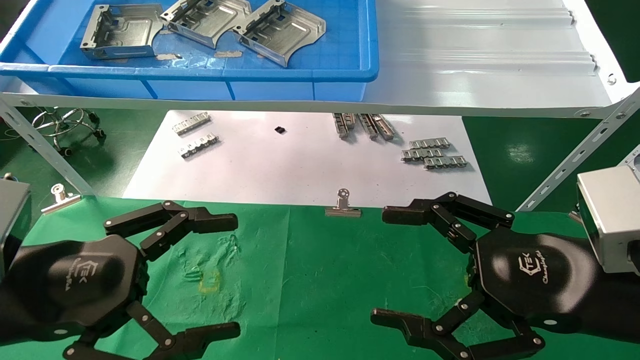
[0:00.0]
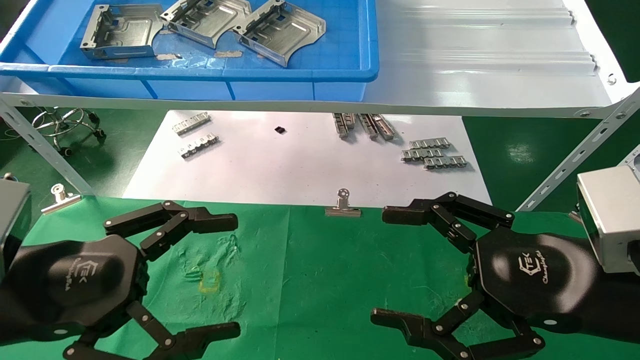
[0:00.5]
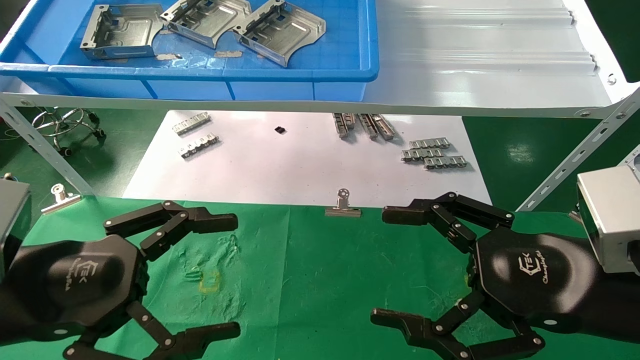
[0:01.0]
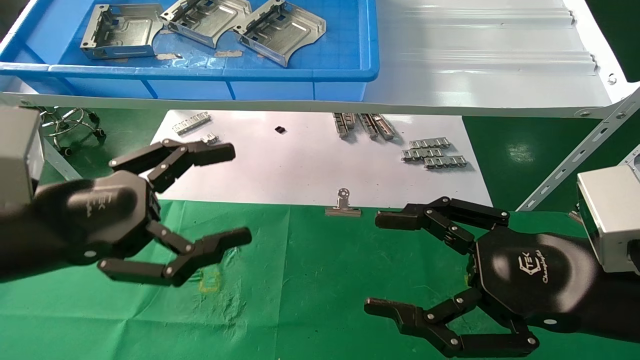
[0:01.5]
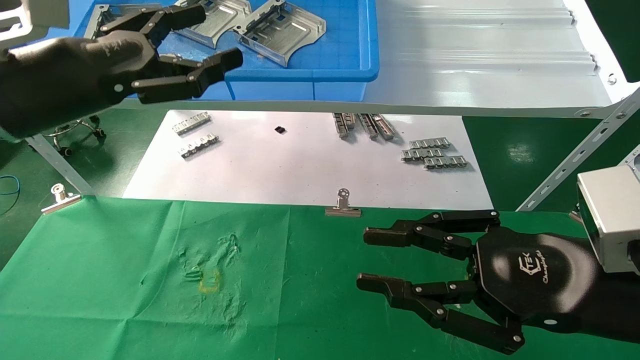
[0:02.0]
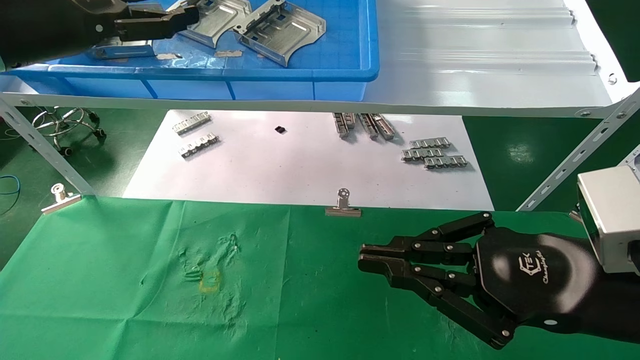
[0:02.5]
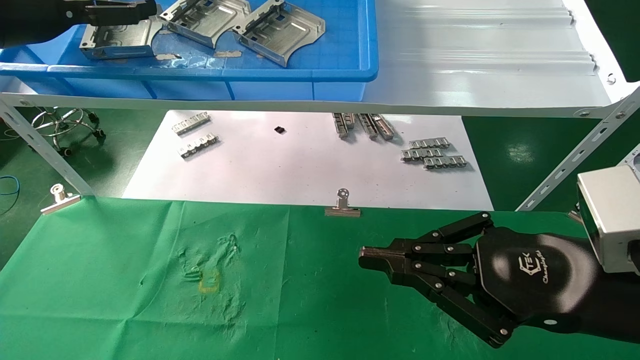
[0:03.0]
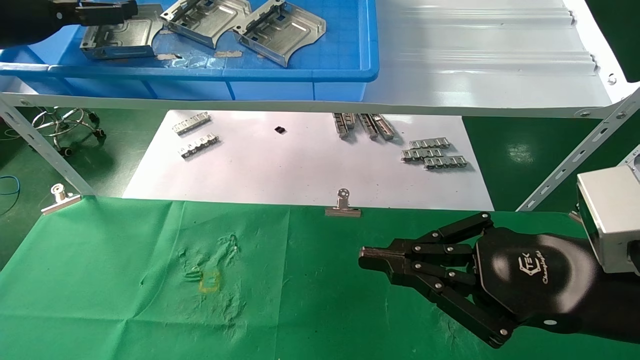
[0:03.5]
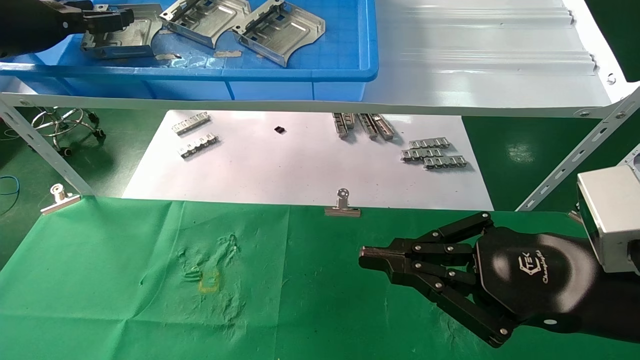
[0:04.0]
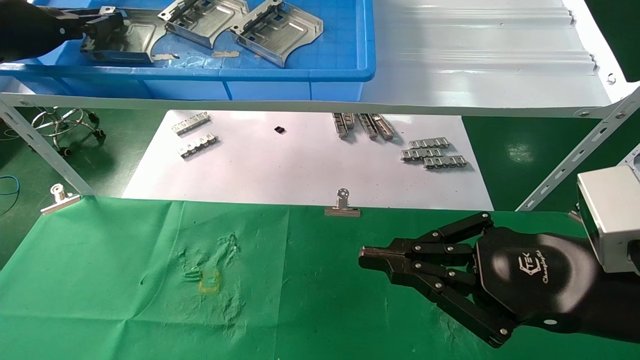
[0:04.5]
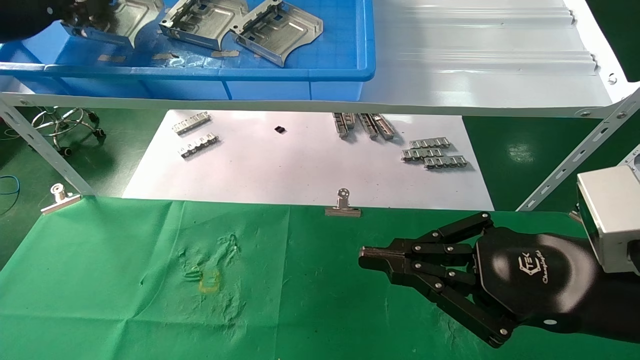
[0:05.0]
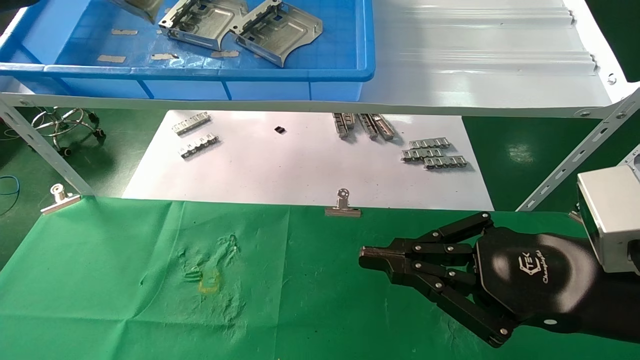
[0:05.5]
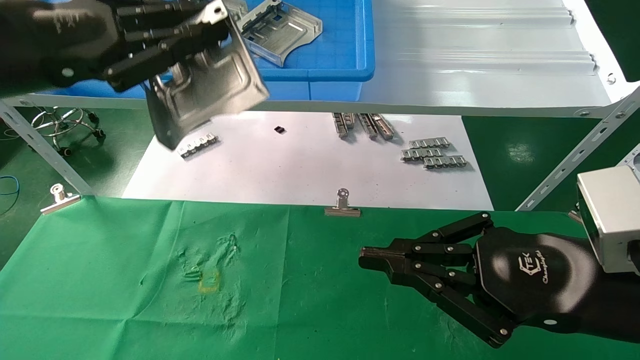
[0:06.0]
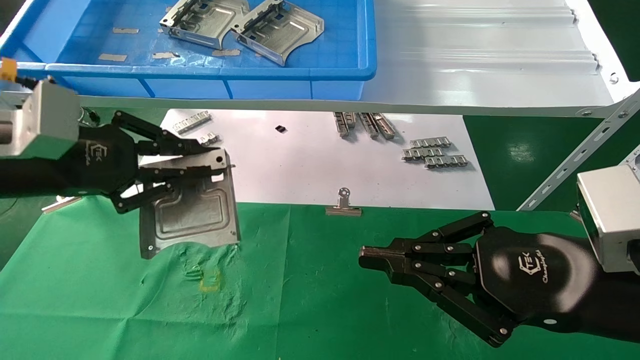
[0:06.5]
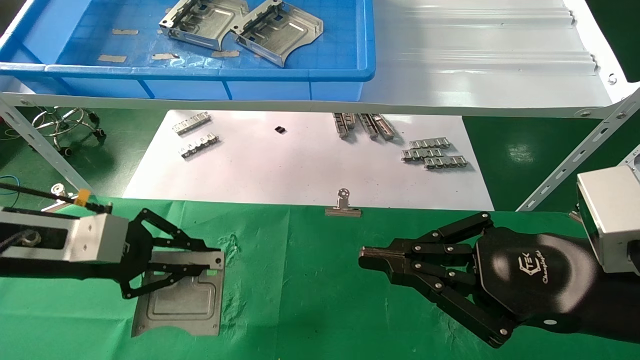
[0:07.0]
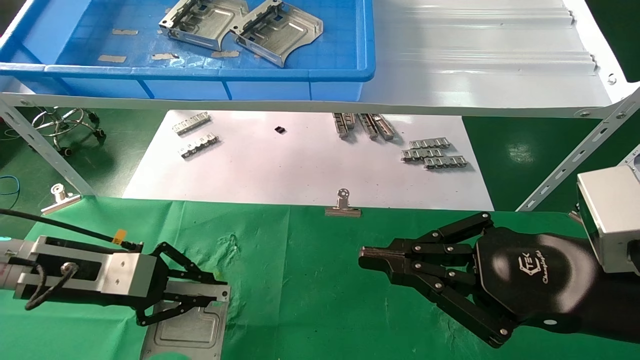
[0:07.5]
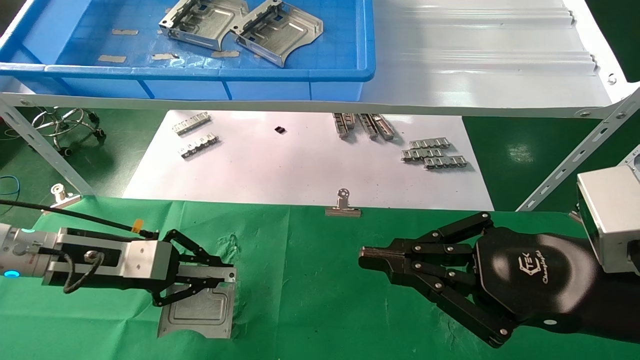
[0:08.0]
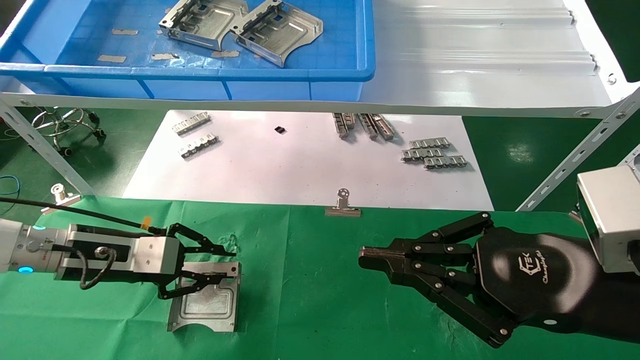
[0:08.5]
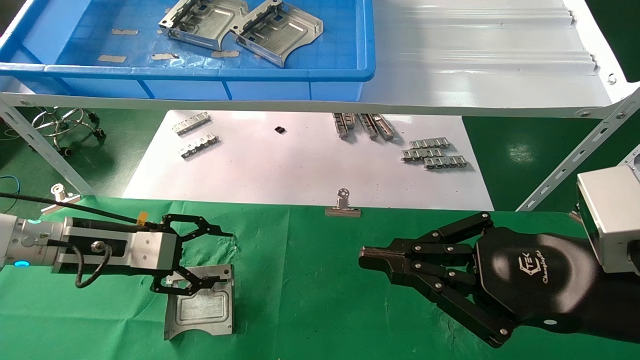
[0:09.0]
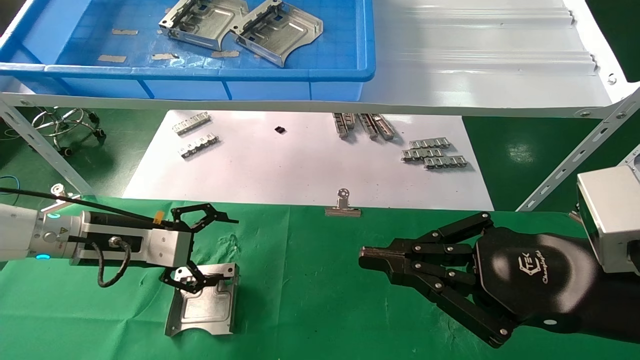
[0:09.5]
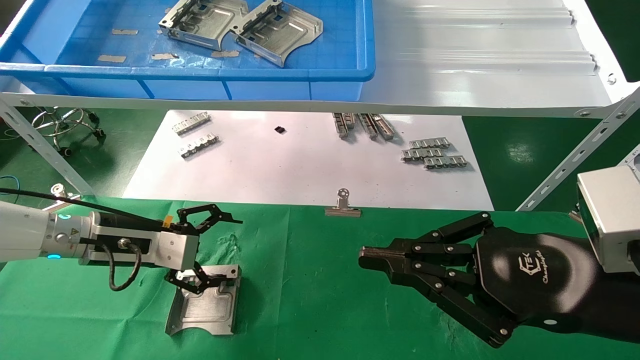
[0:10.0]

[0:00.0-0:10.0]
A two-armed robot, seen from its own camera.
Task of the whole recording: use the mechanical arm to pick up the parts and place them on the table.
Step, 0:01.5 to 0:04.5: Pick up the hard drive bracket from the feeding area.
Step, 0:05.0 to 0:08.5: Place the hard drive bracket into the box.
0:00.0 to 0:02.0: The left gripper goes about 20 cm upward and forward. Meanwhile the right gripper closes its fingers.
0:02.0 to 0:04.0: The left gripper travels to the left, forward and upward by approximately 15 cm. Meanwhile the right gripper closes up.
0:04.0 to 0:06.0: The left gripper moves backward and to the right, about 15 cm, and closes up.
0:06.0 to 0:08.0: The left gripper moves downward, about 25 cm.
0:08.0 to 0:10.0: The left gripper opens up.

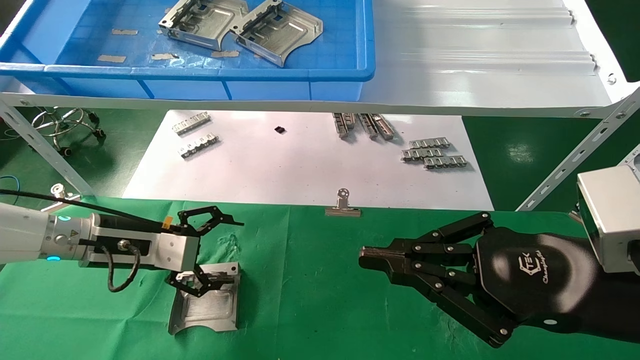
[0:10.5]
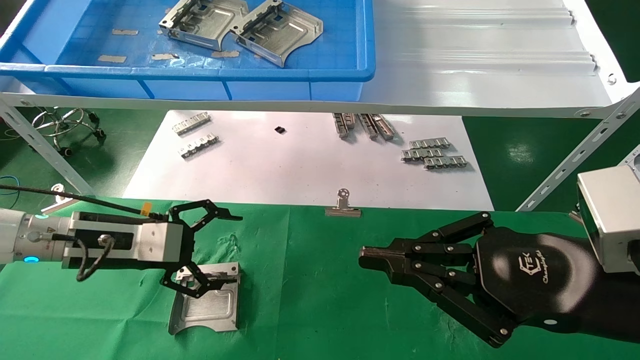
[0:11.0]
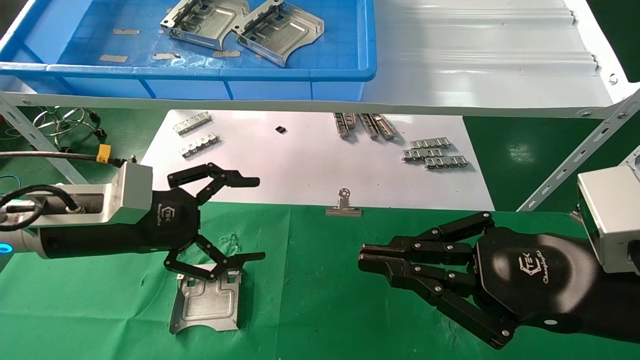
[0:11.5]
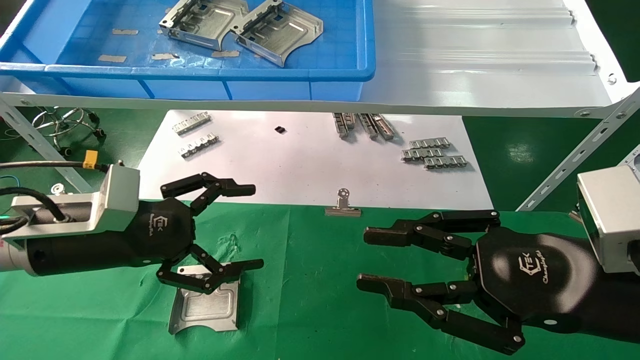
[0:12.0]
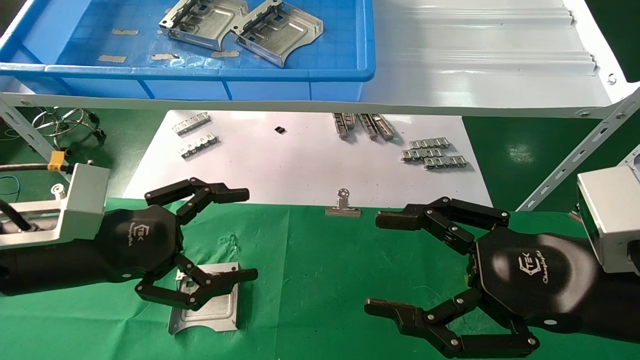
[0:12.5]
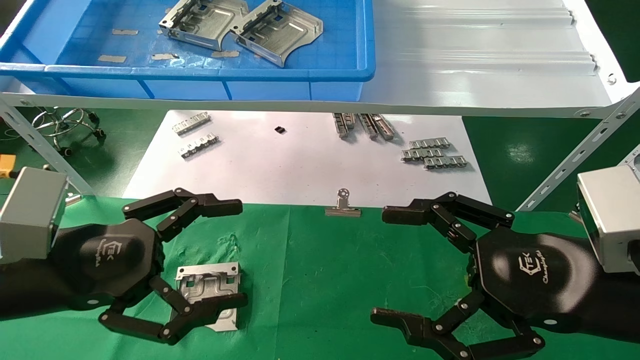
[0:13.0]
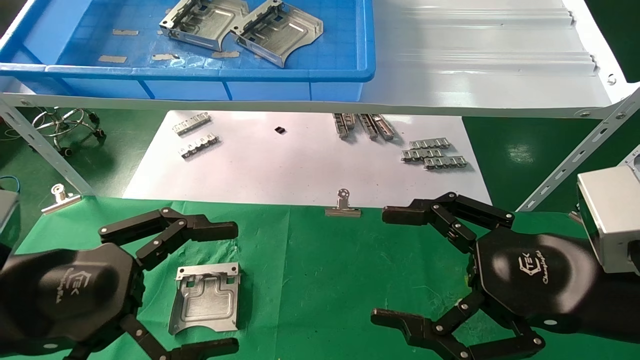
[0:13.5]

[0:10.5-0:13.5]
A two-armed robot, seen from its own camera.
Task of the whole recording: use the mechanical arm to pick up the parts and place them on the table.
0:10.5 to 0:12.0: The left gripper heads backward, covering about 10 cm.
0:12.0 to 0:13.5: The left gripper is displaced backward by some 10 cm. Meanwhile the right gripper opens.

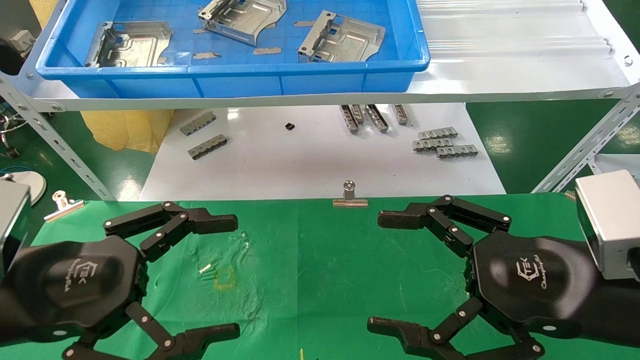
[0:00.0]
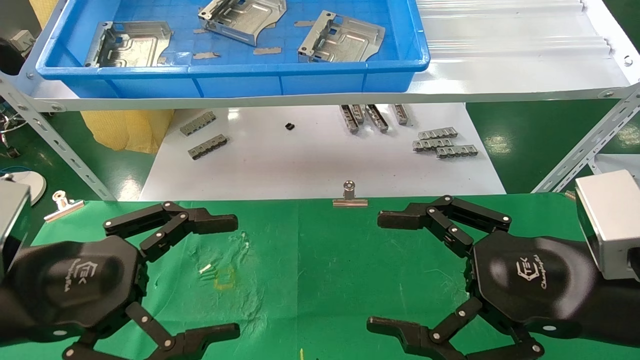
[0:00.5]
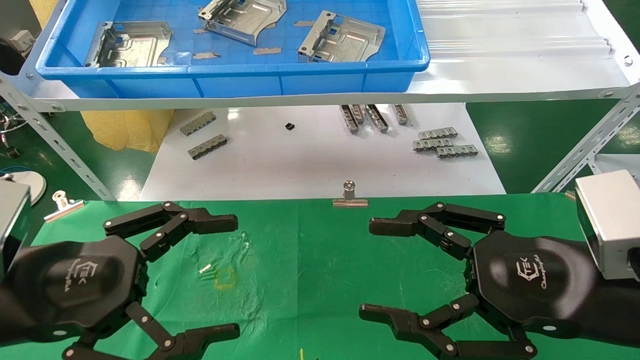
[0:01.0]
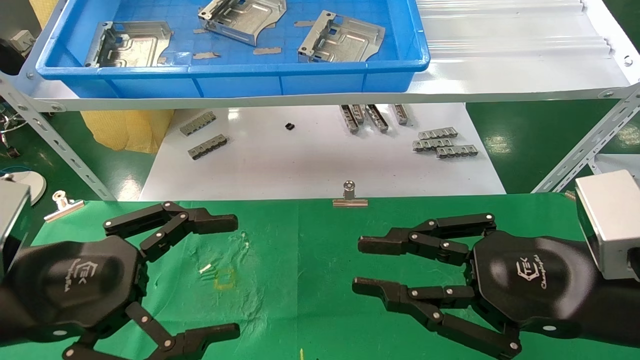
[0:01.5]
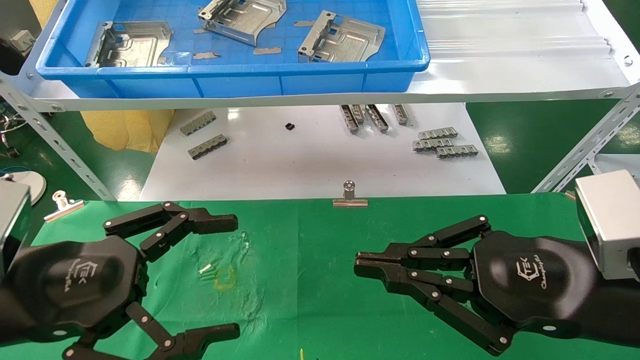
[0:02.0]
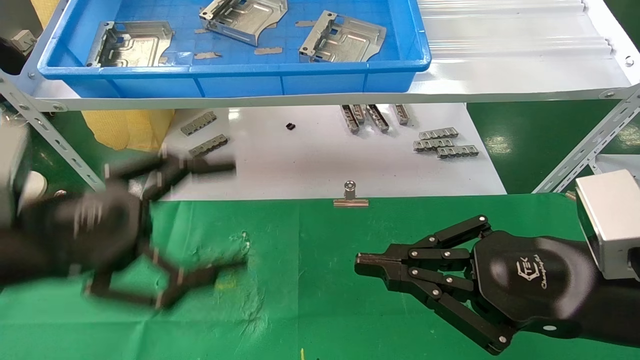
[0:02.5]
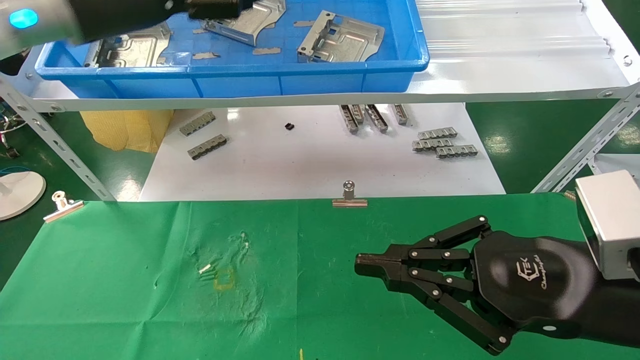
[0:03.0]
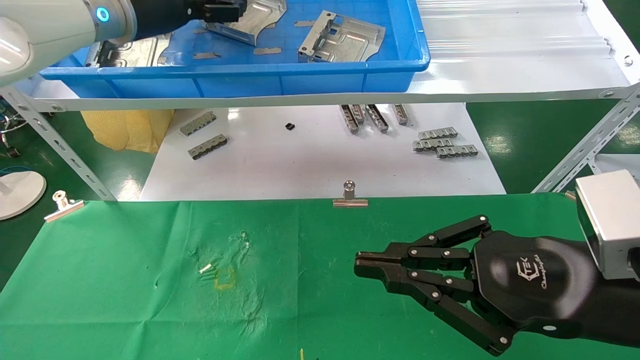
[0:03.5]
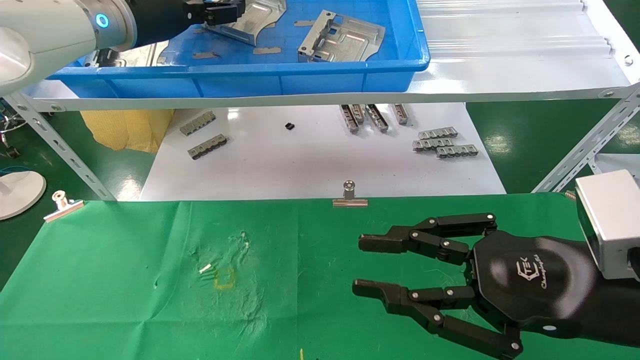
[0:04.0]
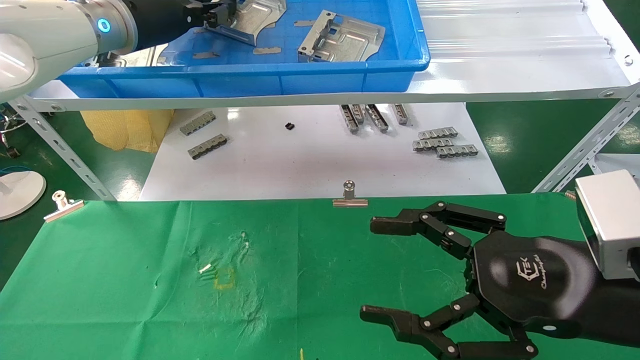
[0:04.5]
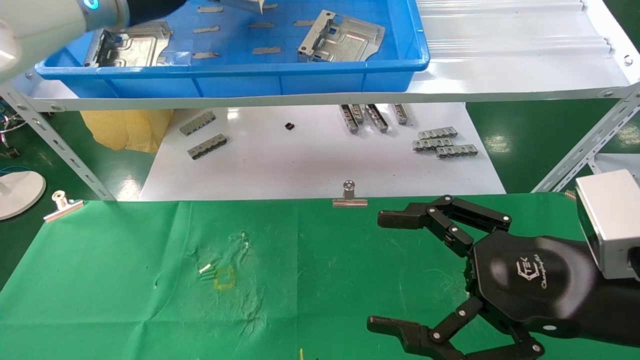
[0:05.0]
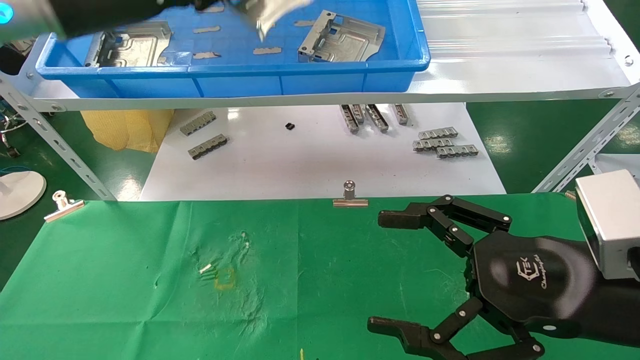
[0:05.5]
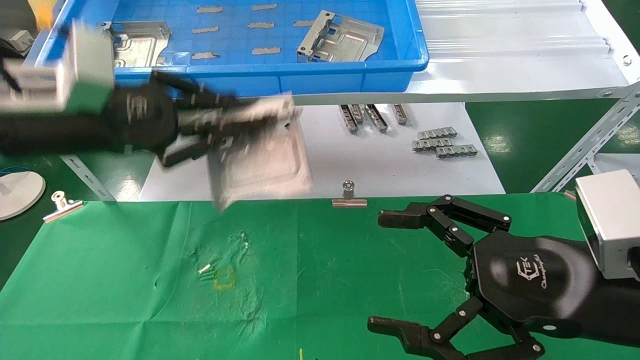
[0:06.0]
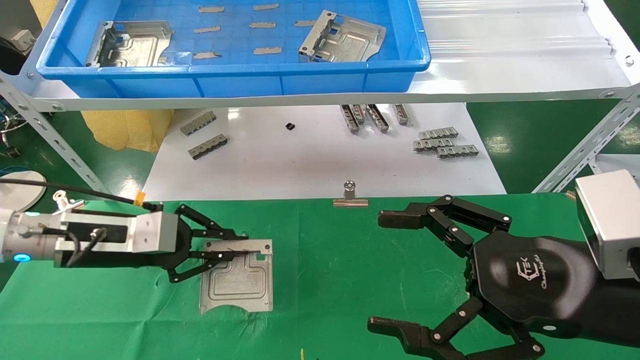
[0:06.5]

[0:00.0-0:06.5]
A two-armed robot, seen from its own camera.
Task of the whole recording: use the mechanical arm to pick up the parts and place them on the table.
Step, 0:02.5 to 0:04.5: Pick up the hard drive bracket from the feeding area.
0:00.0 to 0:02.0: The right gripper closes.
0:02.0 to 0:04.5: The right gripper opens up; the left gripper travels forward and upward by some 35 cm, and closes its fingers.
0:04.5 to 0:06.5: The left gripper travels downward by roughly 25 cm, and closes its fingers. Meanwhile the right gripper opens its fingers.
